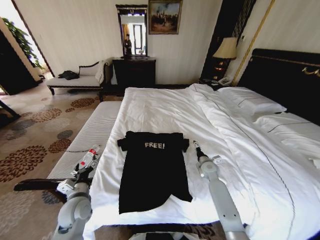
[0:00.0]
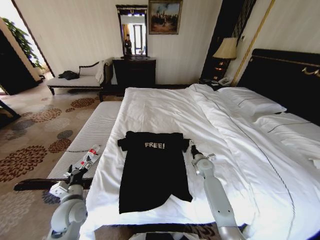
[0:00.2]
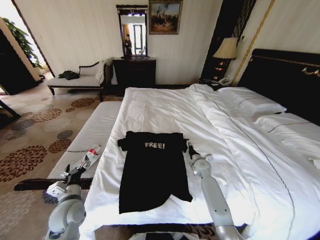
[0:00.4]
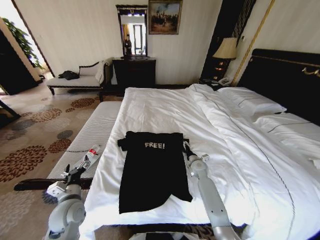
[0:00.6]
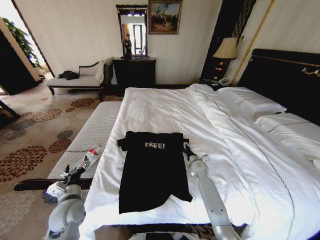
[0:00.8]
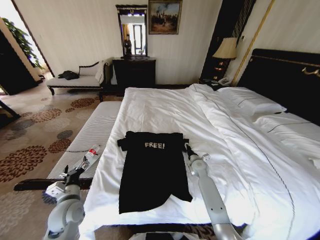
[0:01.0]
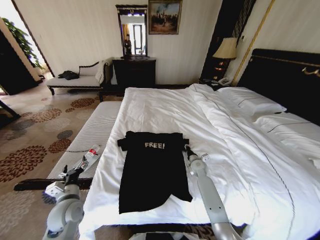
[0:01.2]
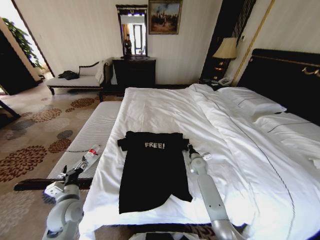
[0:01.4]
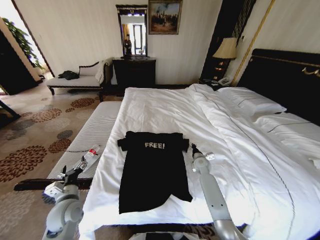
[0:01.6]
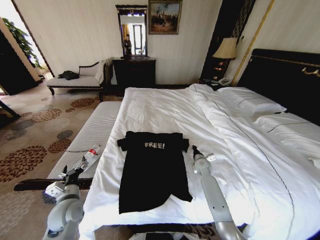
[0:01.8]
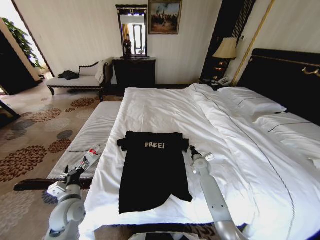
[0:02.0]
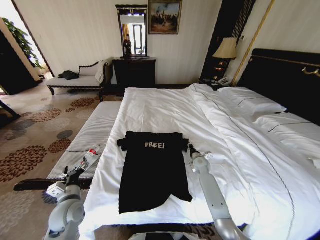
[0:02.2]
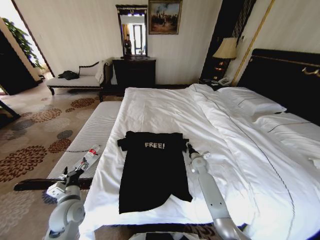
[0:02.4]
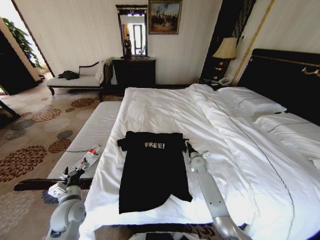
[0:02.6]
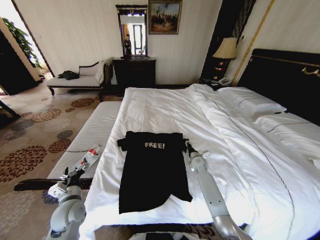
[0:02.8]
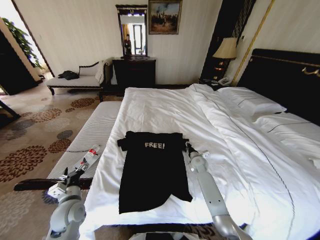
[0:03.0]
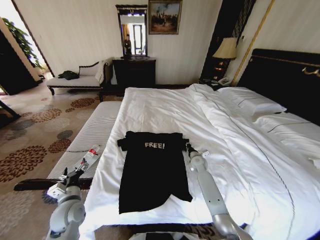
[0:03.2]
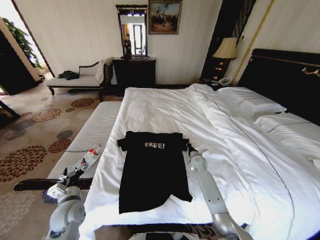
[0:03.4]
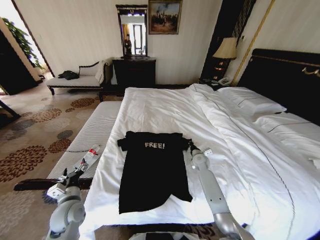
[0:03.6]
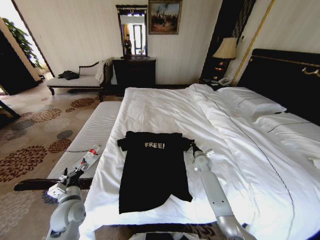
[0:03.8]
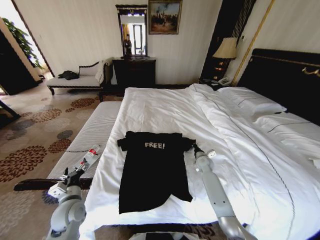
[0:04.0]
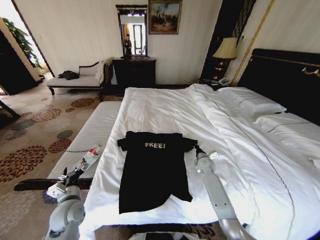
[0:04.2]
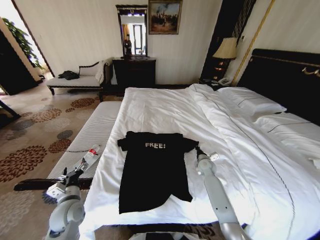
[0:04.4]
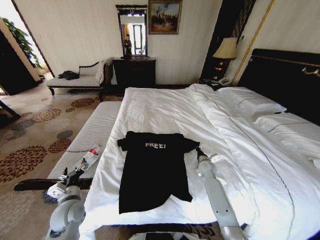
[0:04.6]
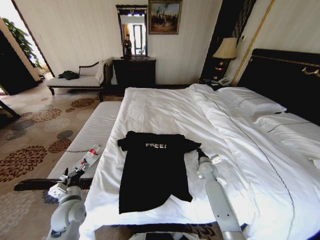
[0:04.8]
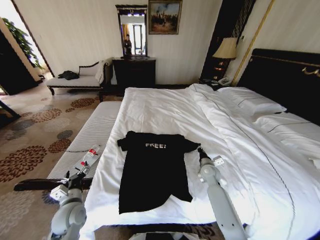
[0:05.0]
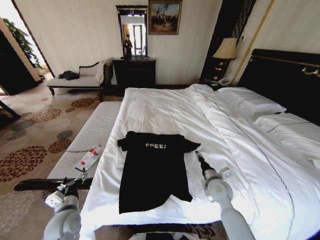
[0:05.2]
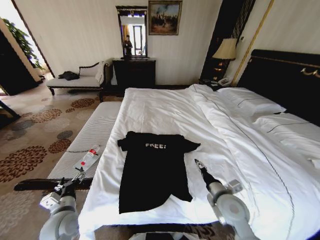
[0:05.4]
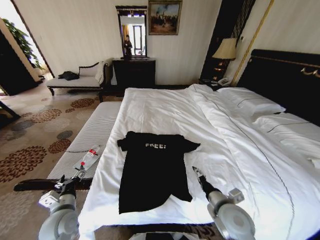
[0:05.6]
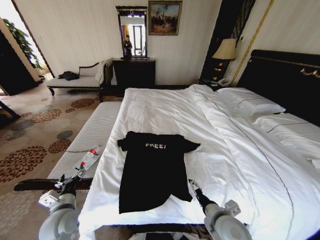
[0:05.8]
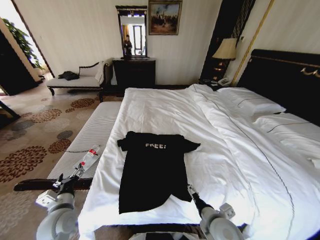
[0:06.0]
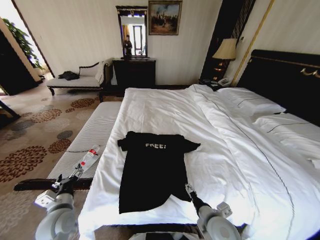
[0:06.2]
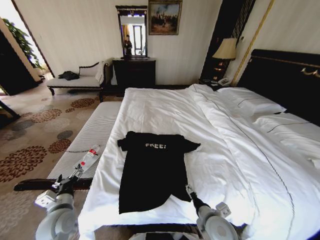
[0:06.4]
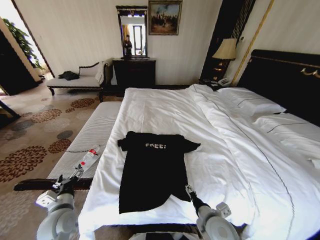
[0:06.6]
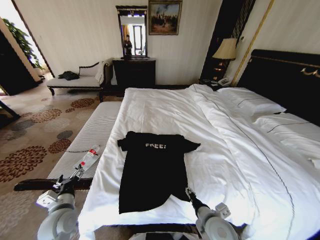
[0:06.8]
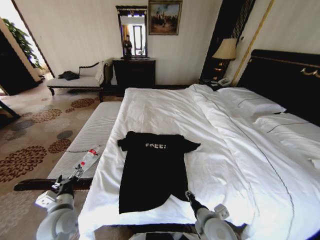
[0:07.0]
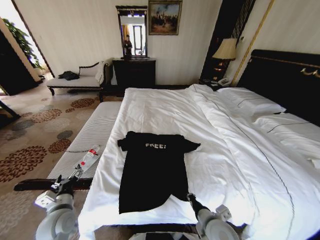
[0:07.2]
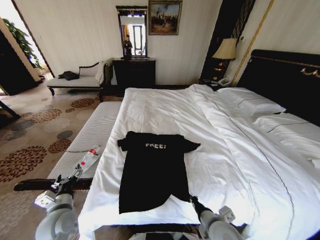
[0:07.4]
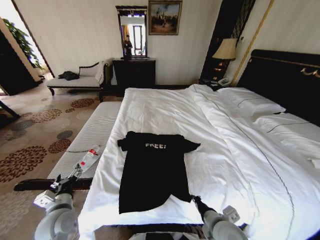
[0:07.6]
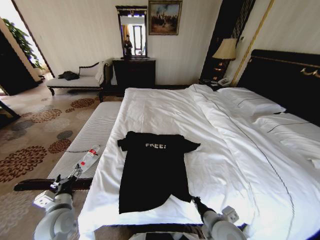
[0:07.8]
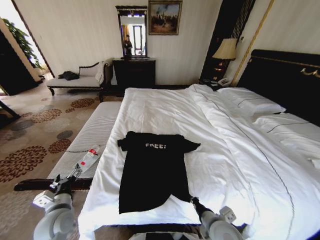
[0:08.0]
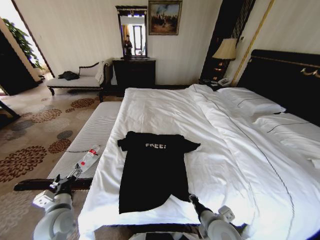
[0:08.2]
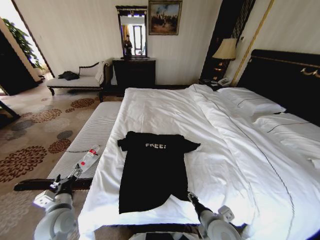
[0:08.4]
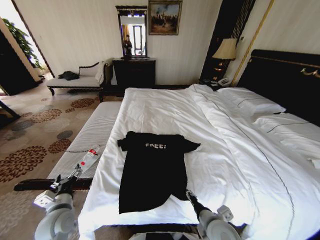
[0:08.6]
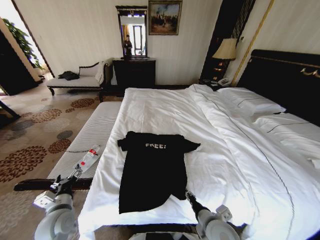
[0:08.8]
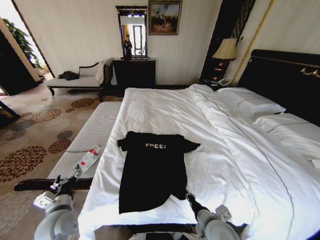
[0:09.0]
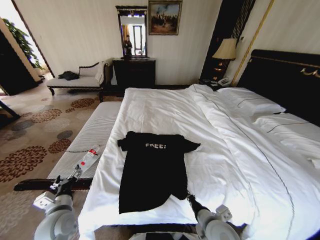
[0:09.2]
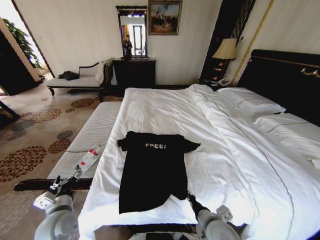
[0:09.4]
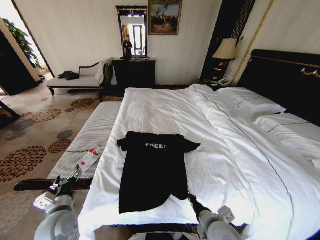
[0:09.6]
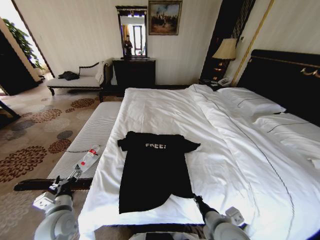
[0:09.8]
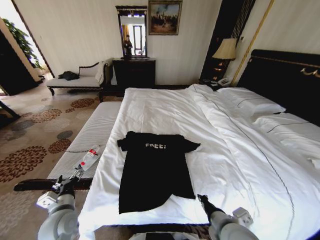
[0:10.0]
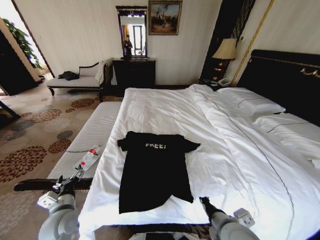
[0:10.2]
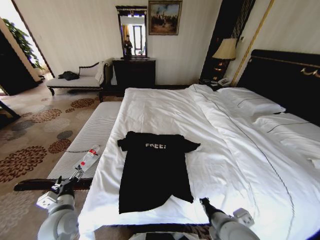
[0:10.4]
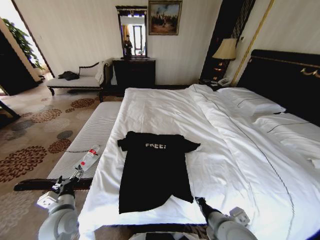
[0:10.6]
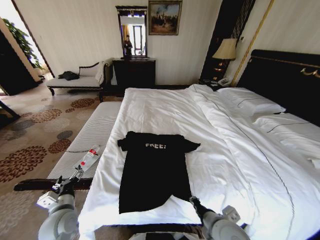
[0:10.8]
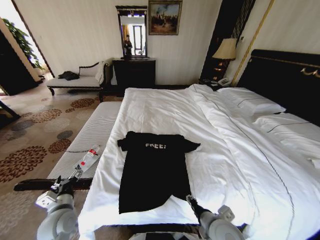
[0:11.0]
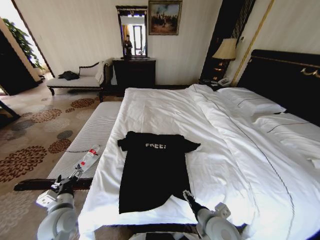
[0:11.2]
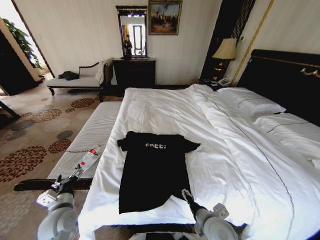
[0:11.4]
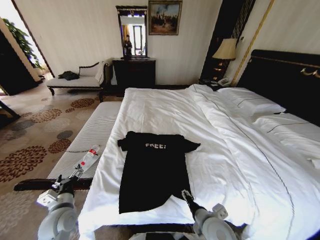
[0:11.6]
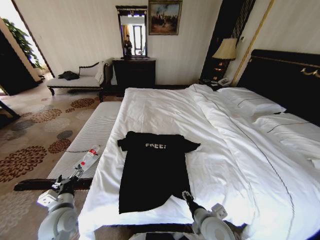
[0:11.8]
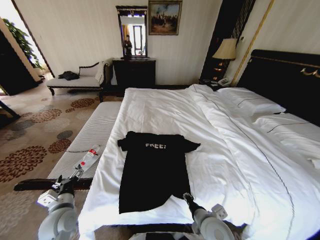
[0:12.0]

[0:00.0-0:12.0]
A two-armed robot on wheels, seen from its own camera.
Task of the whole recording: Fold the clothes on the bed.
0:00.0 to 0:01.6: The right gripper closes.
0:01.6 to 0:03.0: The right gripper opens.
0:03.0 to 0:04.4: The right gripper closes up.
0:04.4 to 0:06.0: The right gripper shifts roughly 30 cm backward, and opens.
0:06.0 to 0:07.6: The right gripper closes up.
0:07.6 to 0:09.0: The right gripper opens, then closes again.
0:09.0 to 0:10.4: The right gripper shifts approximately 5 cm upward.
0:10.4 to 0:12.0: The right gripper shifts roughly 5 cm downward, and opens.

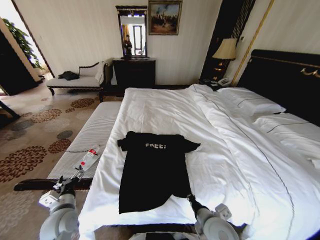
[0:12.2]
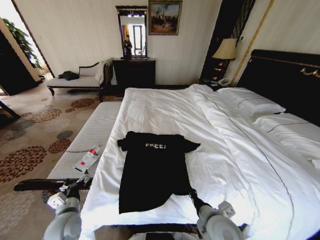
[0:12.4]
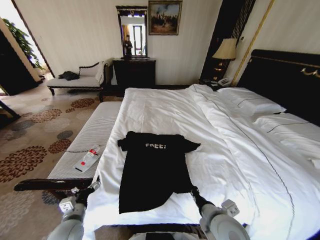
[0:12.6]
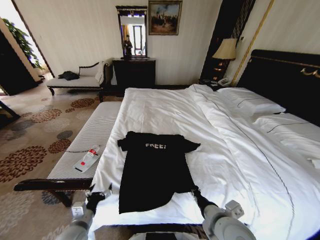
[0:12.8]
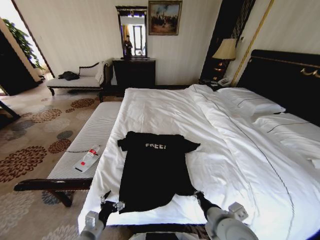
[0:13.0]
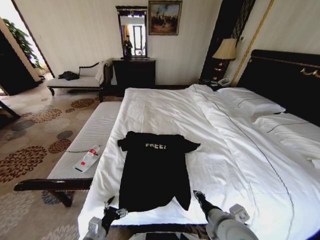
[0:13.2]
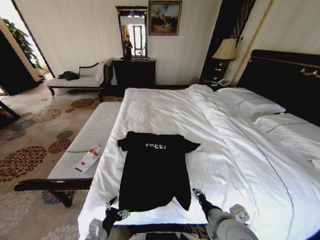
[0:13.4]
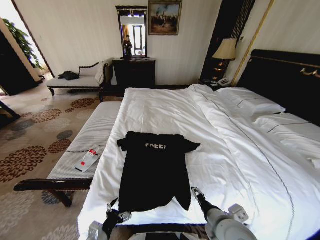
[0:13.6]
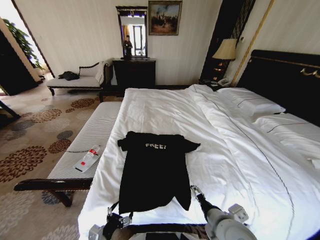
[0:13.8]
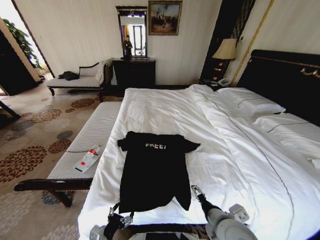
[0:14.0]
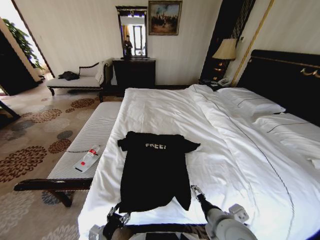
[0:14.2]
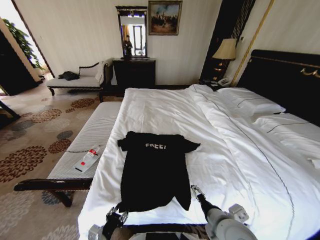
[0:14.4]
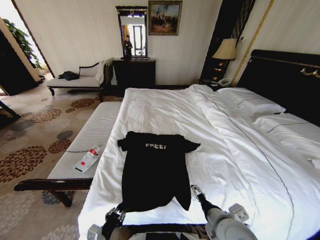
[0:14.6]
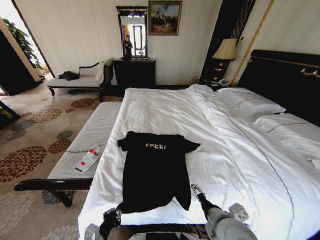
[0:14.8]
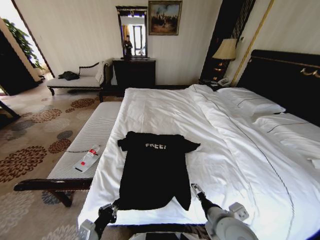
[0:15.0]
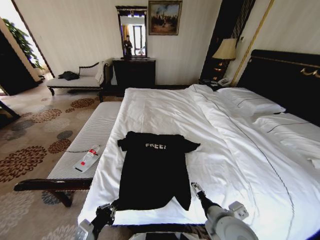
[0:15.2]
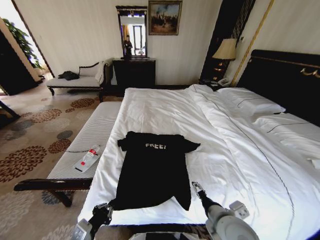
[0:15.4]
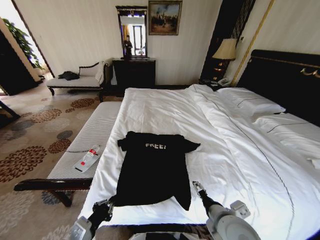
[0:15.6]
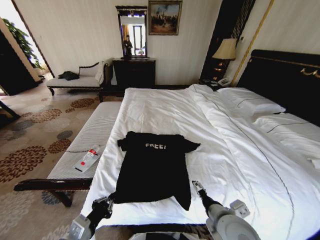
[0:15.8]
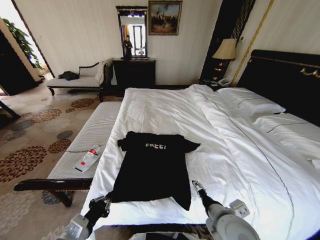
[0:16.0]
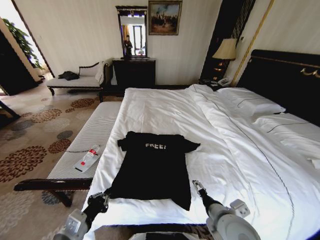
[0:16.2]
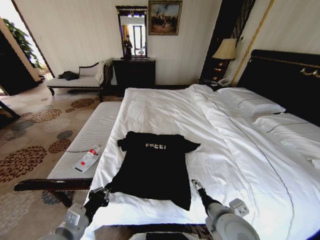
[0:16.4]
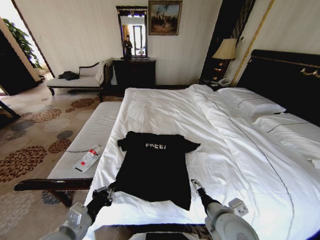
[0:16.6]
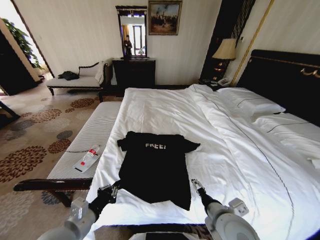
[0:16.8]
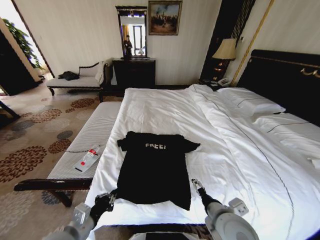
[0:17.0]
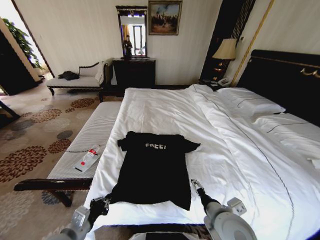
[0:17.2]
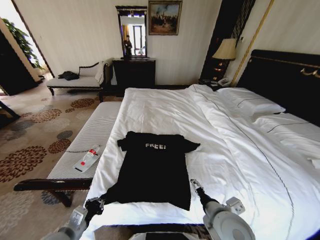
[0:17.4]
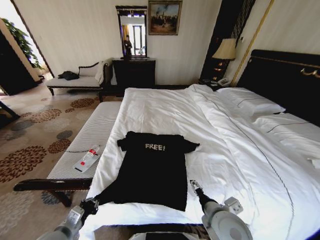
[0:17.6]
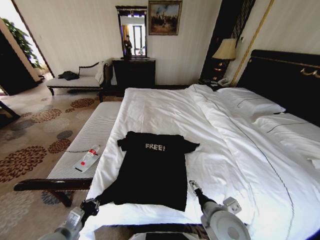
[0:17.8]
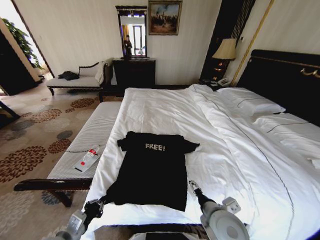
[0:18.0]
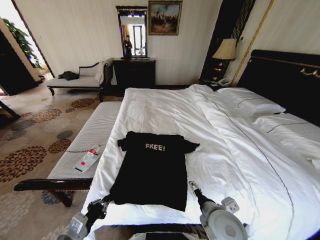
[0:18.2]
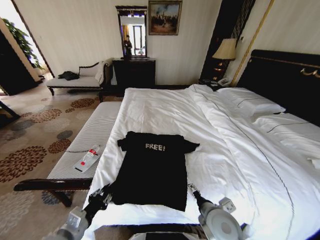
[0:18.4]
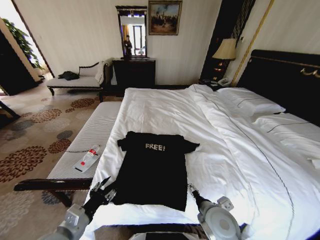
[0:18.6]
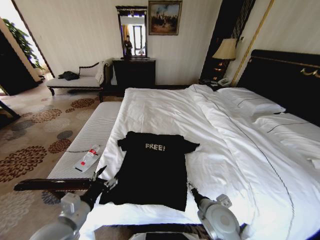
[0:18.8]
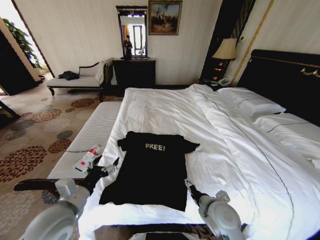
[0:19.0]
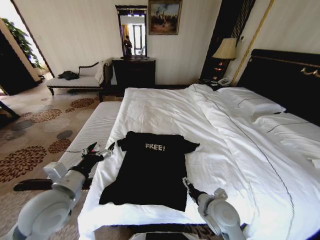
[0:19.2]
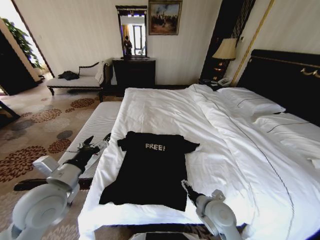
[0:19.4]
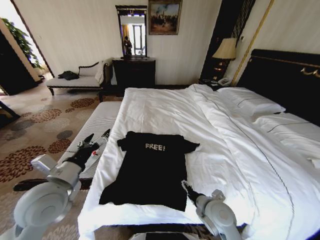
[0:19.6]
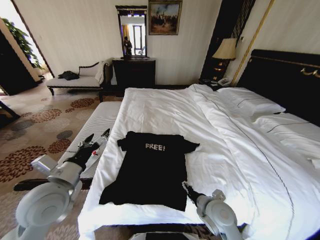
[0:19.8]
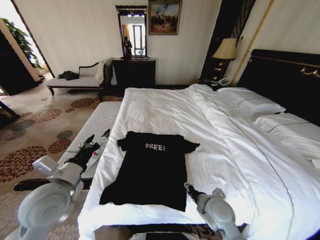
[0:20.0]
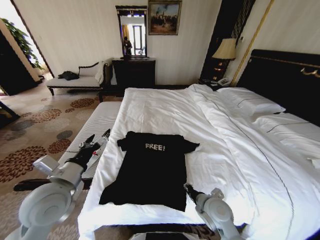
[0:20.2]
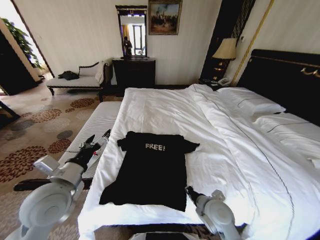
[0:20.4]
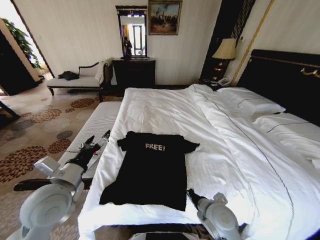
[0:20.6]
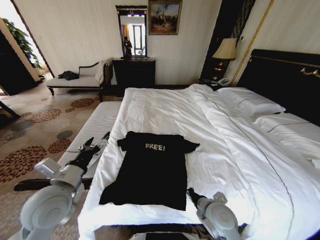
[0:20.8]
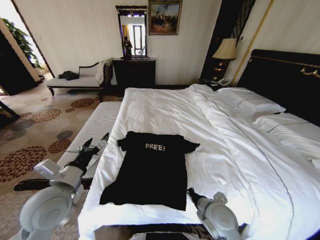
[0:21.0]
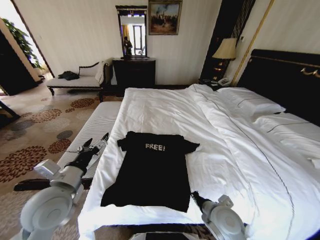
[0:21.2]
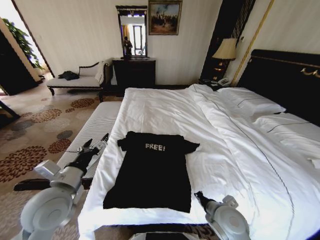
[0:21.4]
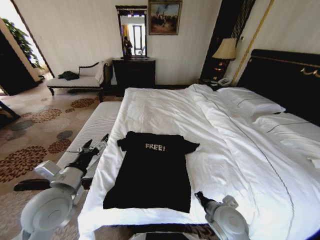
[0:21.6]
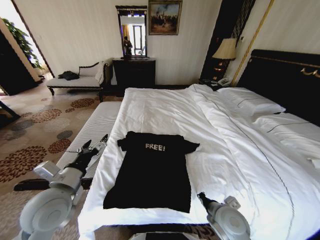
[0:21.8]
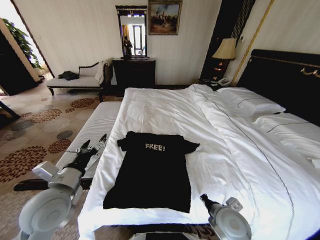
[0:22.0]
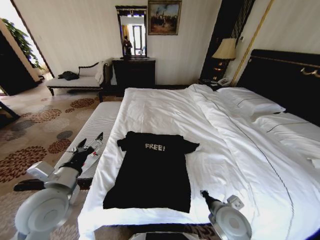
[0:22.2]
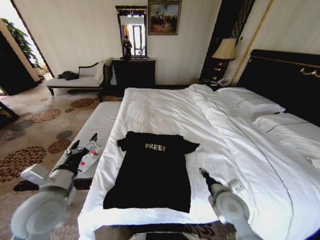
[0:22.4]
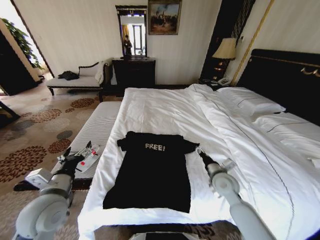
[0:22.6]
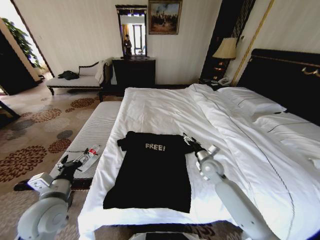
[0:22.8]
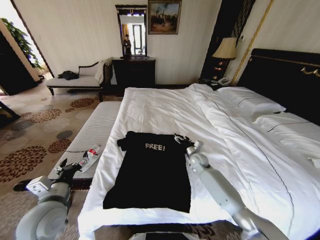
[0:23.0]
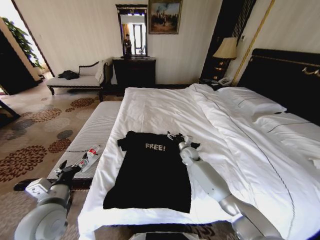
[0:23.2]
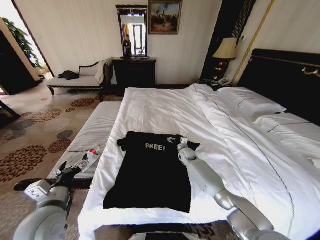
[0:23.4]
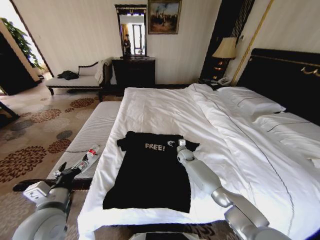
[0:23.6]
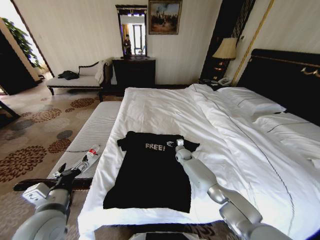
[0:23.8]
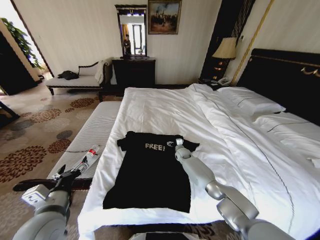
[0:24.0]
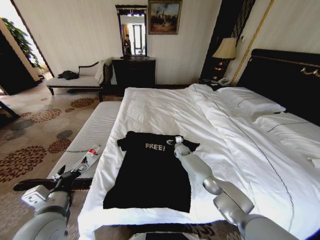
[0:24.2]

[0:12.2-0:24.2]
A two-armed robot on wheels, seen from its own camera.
Task of the whole recording: Fold the clothes on the bed.
0:12.2 to 0:13.8: The left gripper is displaced backward, to the right and downward by roughly 15 cm. The right gripper shifts approximately 5 cm upward, and opens.
0:13.8 to 0:15.2: The left gripper travels upward by roughly 10 cm, and closes.
0:15.2 to 0:16.6: The left gripper shifts approximately 5 cm upward.
0:16.6 to 0:18.2: The left gripper goes roughly 5 cm downward.
0:18.2 to 0:19.8: The right gripper shifts by roughly 5 cm. The left gripper goes about 20 cm upward and forward, and opens.
0:19.8 to 0:21.2: The right gripper closes up.
0:21.2 to 0:22.6: The right gripper goes roughly 15 cm forward and to the right, and opens.
0:22.6 to 0:24.2: The right gripper is displaced forward and downward by some 30 cm, and opens up.
